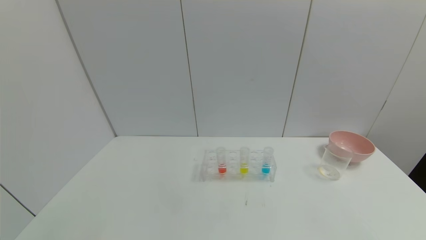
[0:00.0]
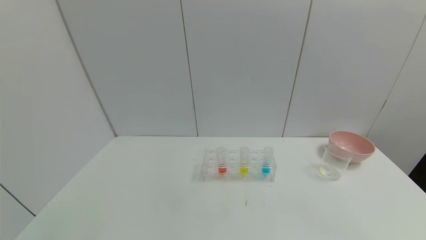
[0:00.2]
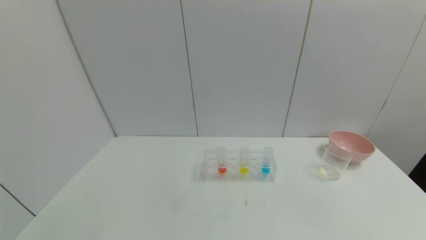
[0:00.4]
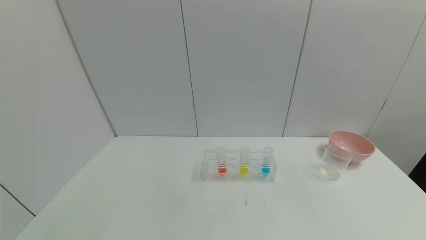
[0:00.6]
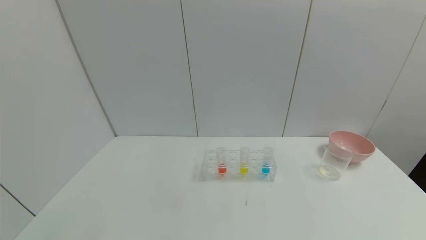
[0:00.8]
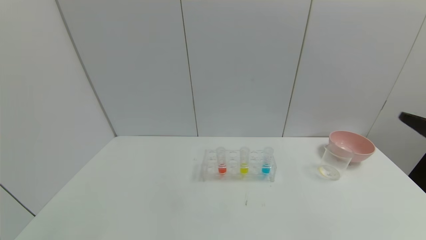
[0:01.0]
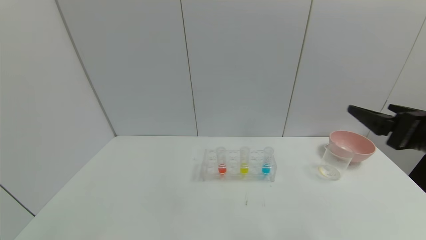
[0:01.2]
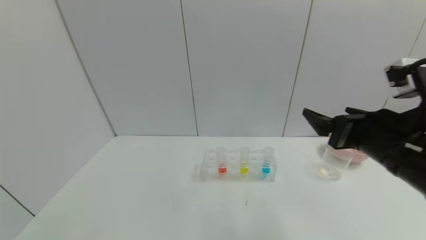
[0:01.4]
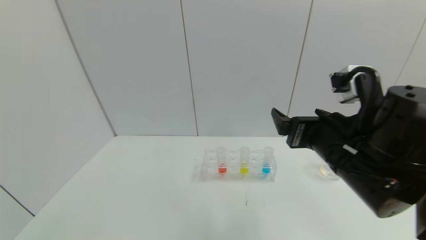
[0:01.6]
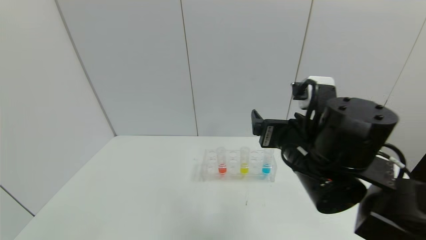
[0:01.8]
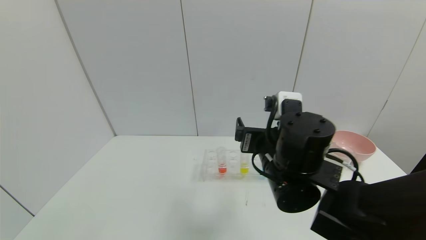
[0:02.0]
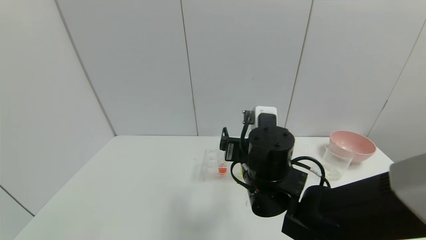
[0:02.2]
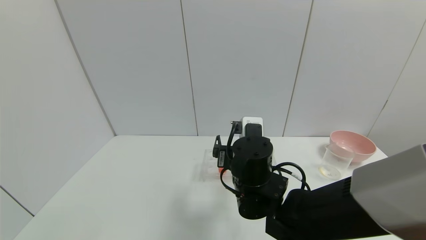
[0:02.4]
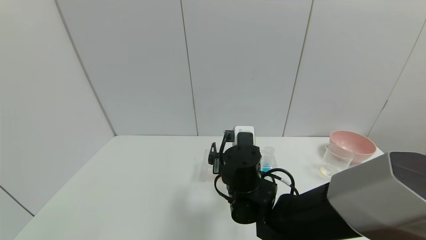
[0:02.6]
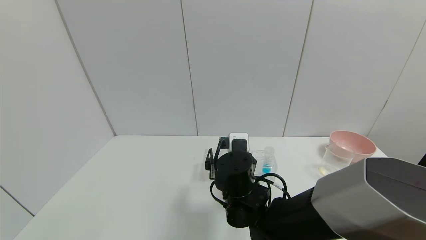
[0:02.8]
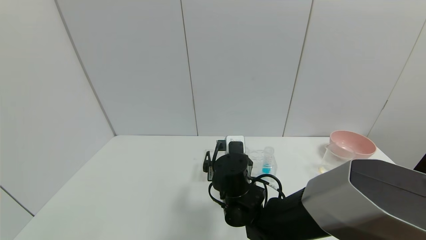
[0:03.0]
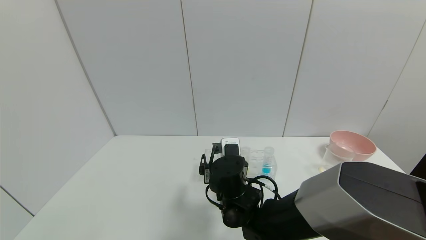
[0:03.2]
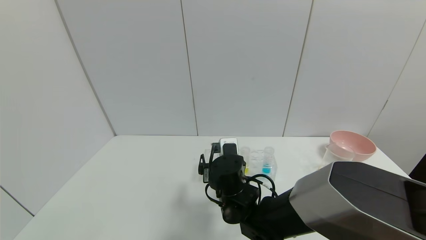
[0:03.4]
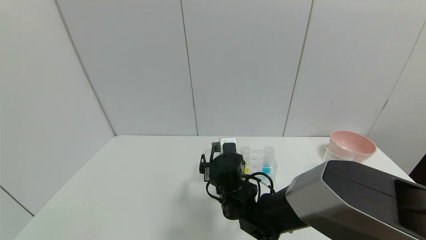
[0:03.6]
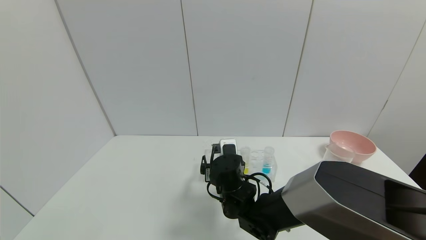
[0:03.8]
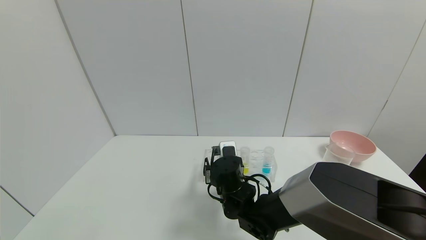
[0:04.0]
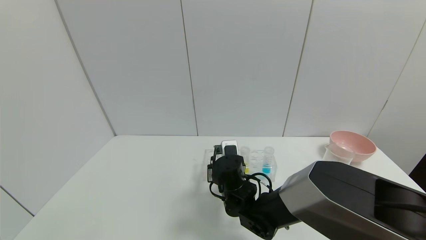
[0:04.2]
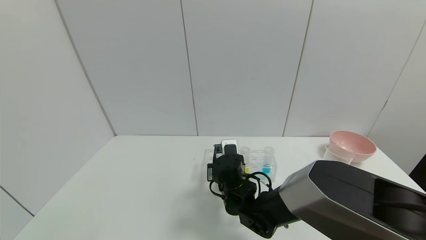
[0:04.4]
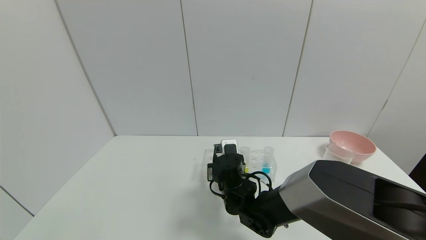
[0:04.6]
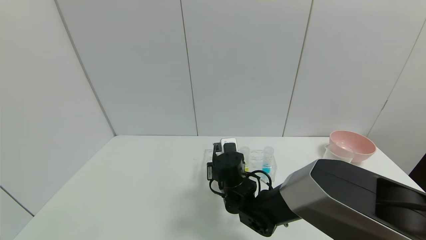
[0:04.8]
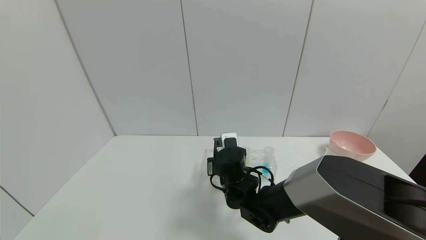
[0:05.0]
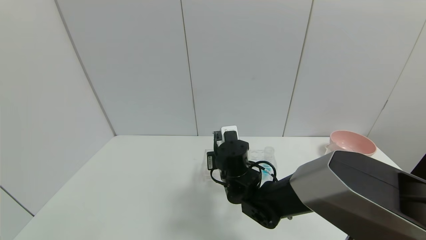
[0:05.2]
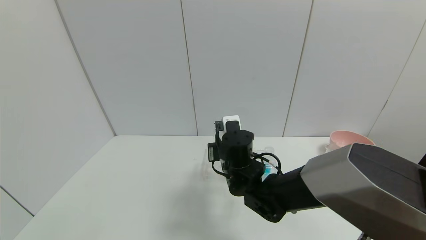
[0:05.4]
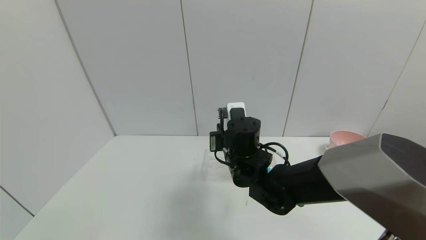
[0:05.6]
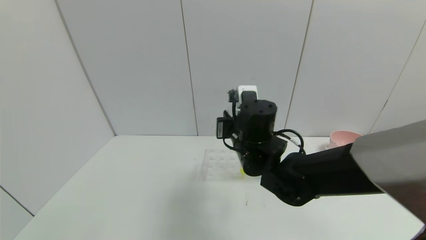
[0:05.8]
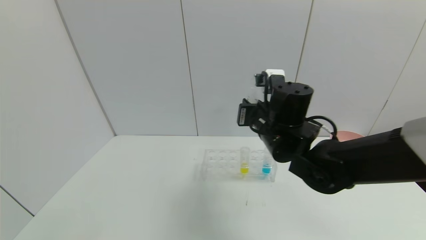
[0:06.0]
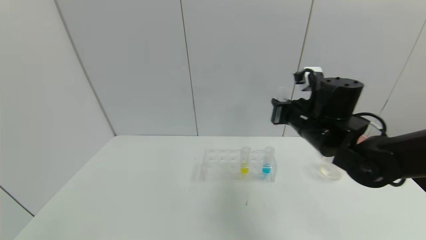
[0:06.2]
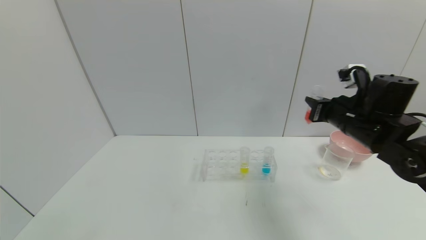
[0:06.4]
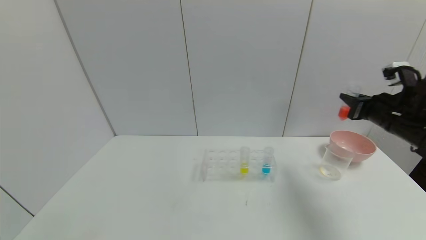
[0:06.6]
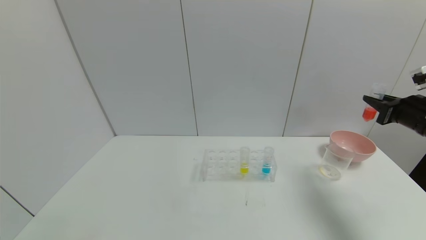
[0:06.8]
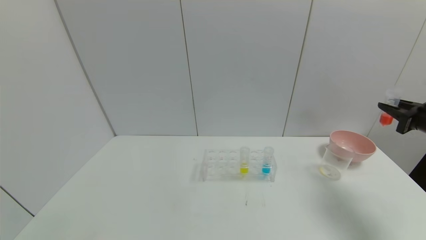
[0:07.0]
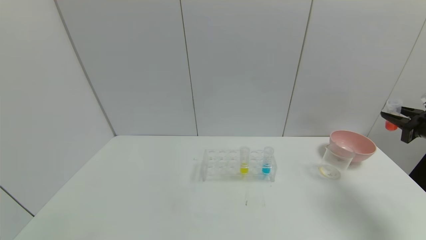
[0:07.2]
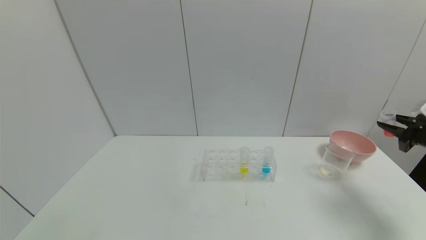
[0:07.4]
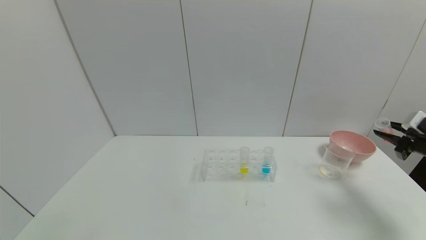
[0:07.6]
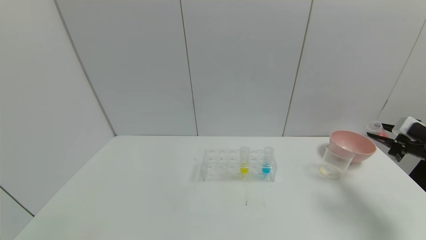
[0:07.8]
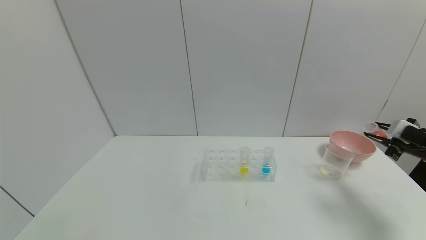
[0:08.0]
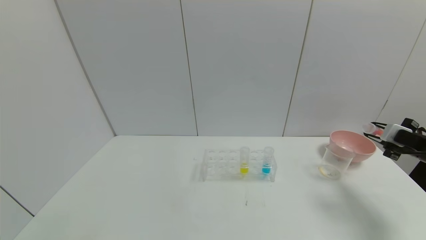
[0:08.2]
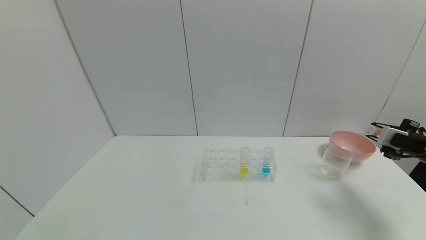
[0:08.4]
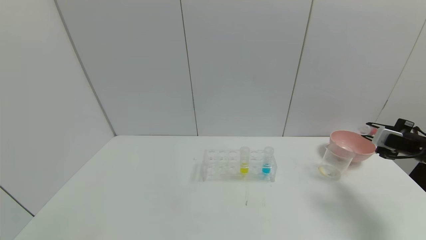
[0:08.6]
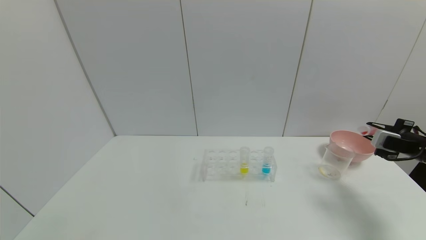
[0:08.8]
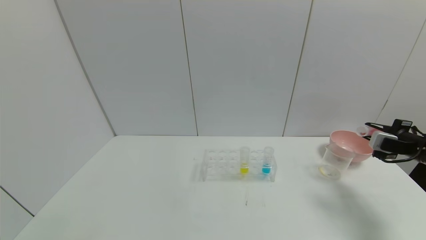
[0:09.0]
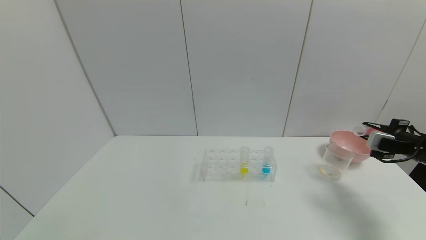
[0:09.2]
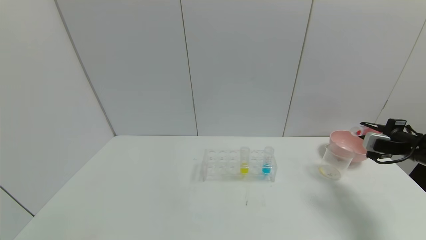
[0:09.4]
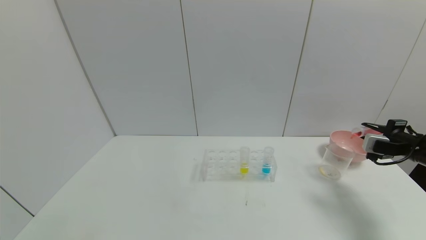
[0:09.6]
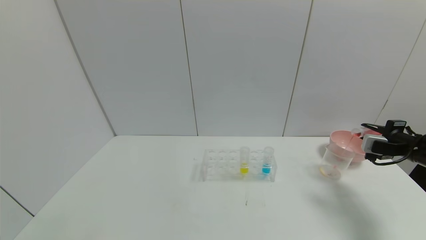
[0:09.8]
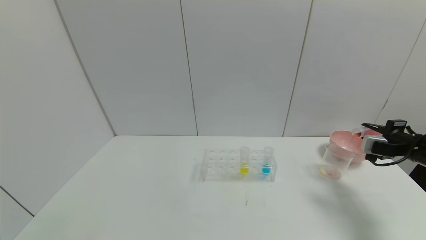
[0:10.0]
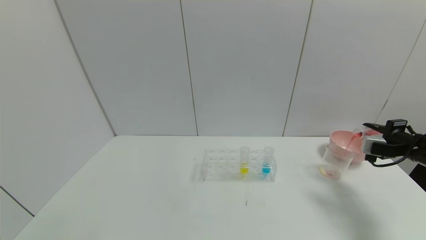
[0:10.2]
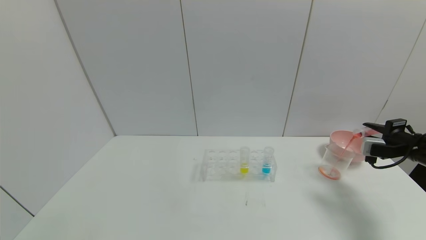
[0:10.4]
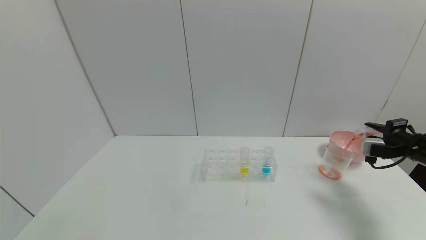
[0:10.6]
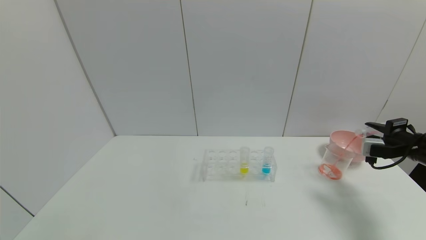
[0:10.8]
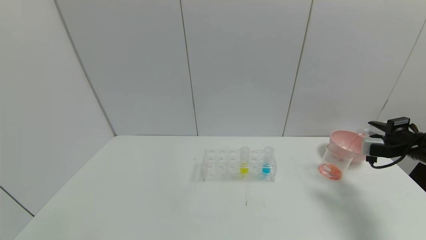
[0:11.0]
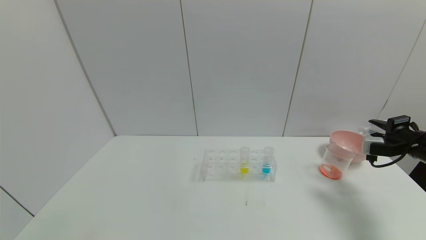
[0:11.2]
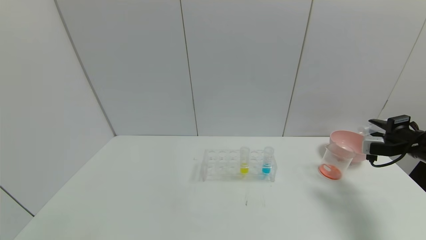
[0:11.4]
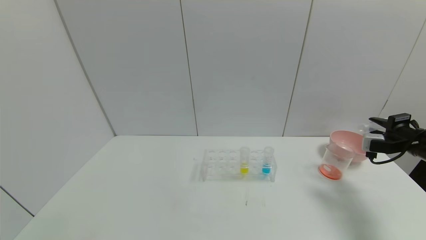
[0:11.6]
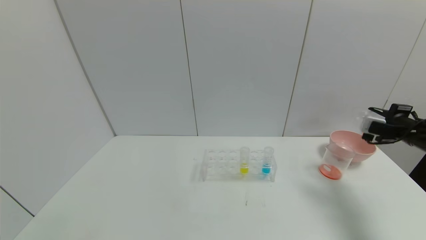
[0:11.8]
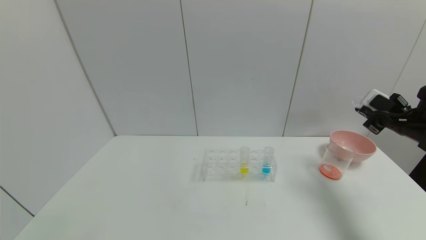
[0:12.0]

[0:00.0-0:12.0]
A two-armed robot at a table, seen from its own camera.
Task of the whole recording: pick up the test tube with yellow pigment and the test tube with red pigment by grippers and pour them into the beaker.
Step, 0:00.0 to 0:04.4: Grasp the red reagent with the right gripper.
Step, 0:04.6 to 0:11.2: Pour the red reagent into the graduated cylinder with the right gripper.
0:00.0 to 0:01.6: The right gripper travels forward, to the left and upward by some 35 cm.
0:01.6 to 0:03.0: The right gripper moves to the left, downward and forward, approximately 20 cm.
0:03.0 to 0:04.4: The right gripper changes place by about 5 cm, and closes.
0:04.4 to 0:06.0: The right gripper moves upward and to the right, roughly 20 cm.
0:06.0 to 0:07.6: The right gripper travels to the right by some 40 cm.
0:09.0 to 0:10.4: The grippers stay close to where they were, moving slightly.
0:10.4 to 0:12.0: The right gripper moves some 5 cm.

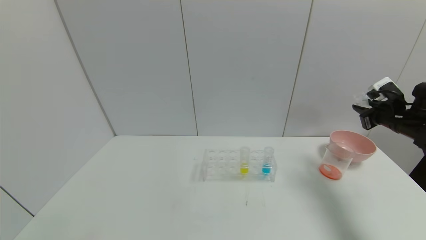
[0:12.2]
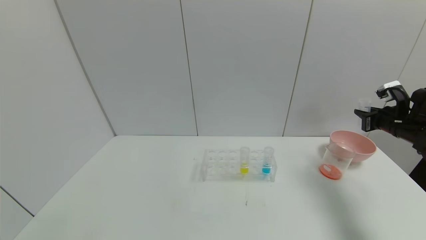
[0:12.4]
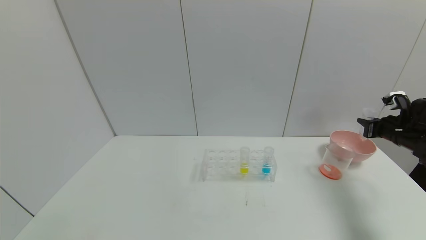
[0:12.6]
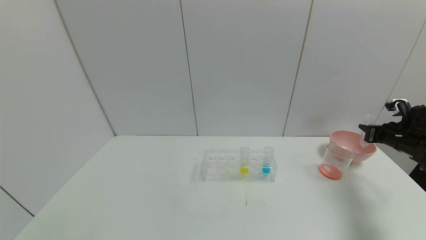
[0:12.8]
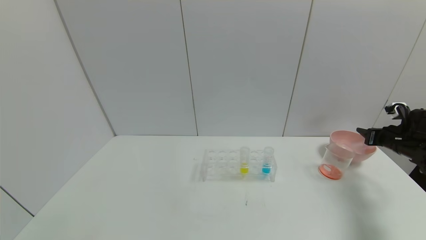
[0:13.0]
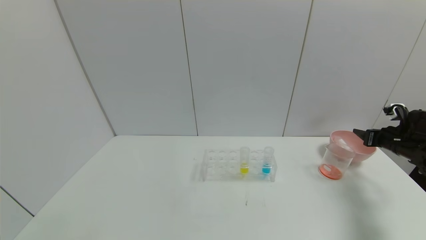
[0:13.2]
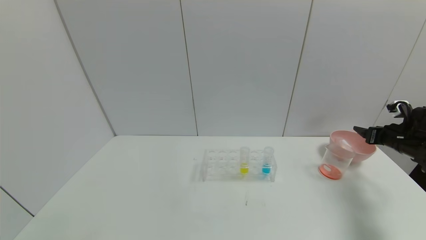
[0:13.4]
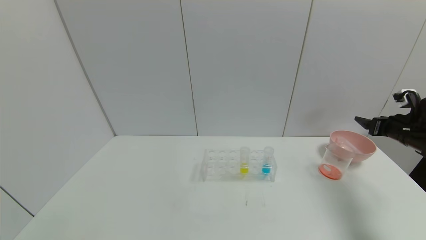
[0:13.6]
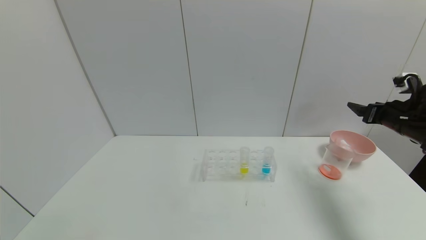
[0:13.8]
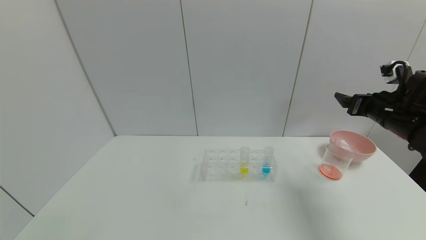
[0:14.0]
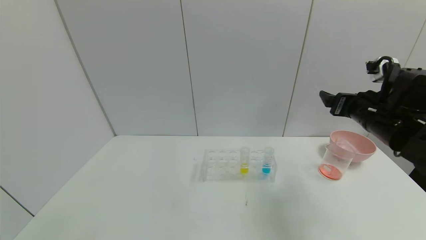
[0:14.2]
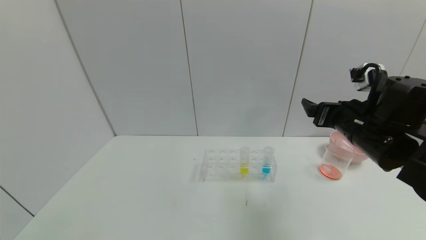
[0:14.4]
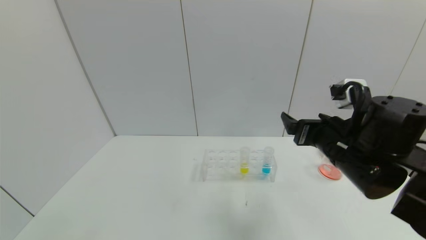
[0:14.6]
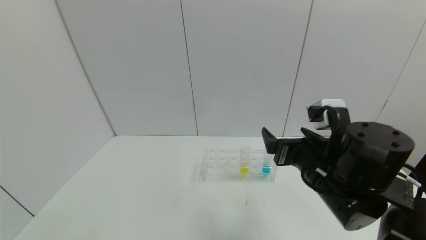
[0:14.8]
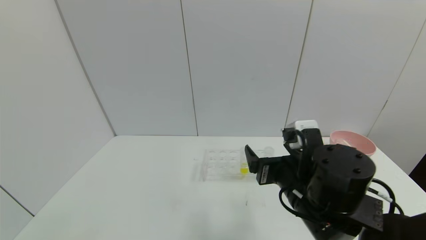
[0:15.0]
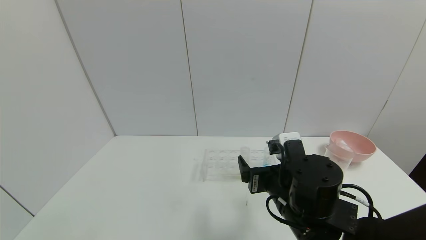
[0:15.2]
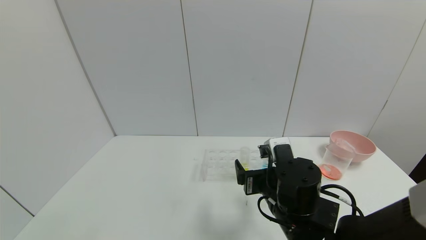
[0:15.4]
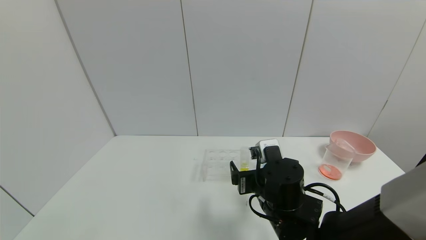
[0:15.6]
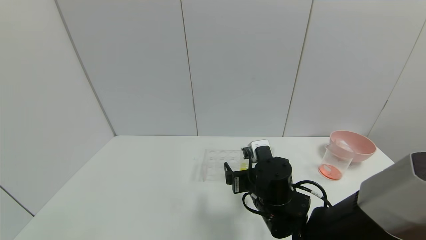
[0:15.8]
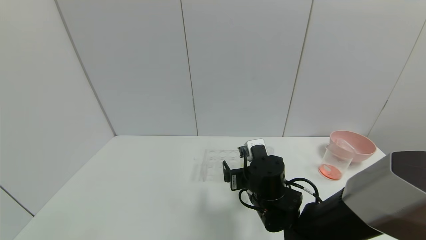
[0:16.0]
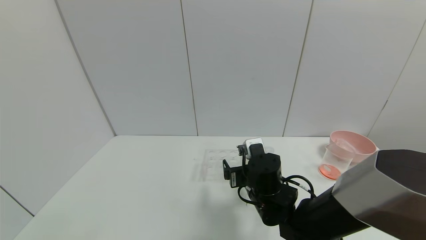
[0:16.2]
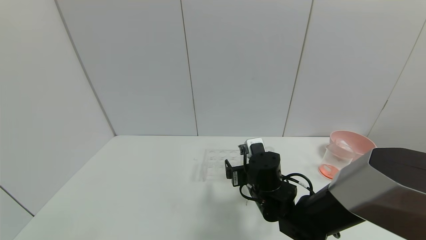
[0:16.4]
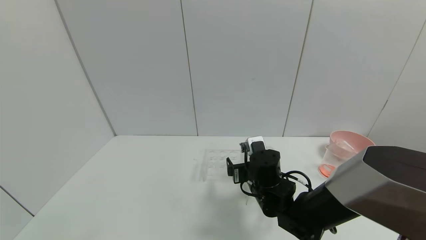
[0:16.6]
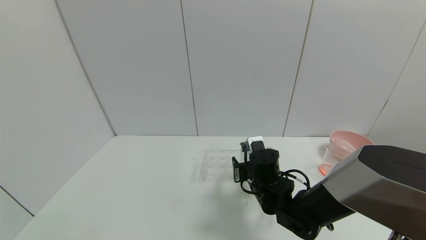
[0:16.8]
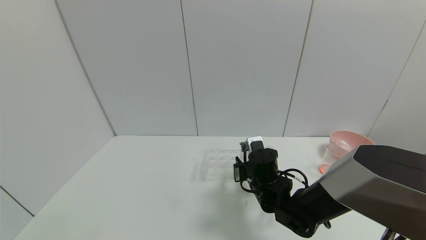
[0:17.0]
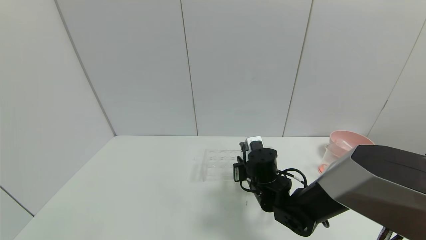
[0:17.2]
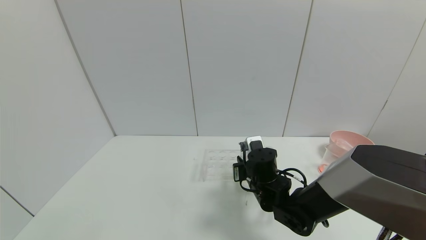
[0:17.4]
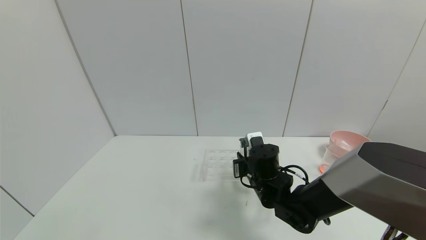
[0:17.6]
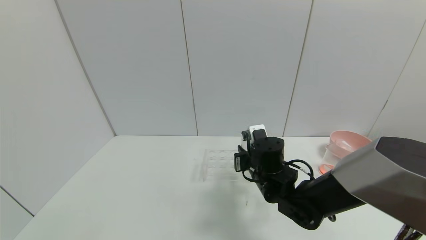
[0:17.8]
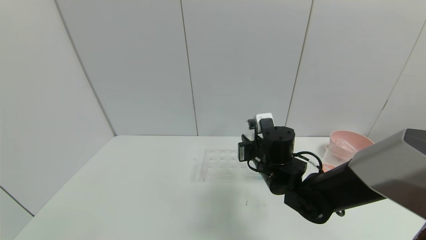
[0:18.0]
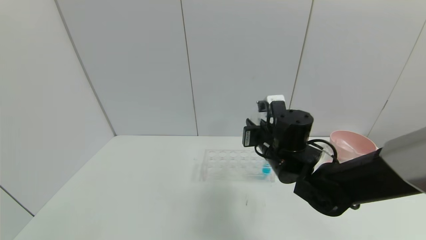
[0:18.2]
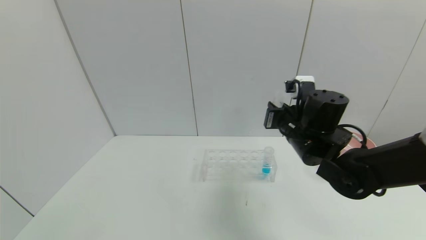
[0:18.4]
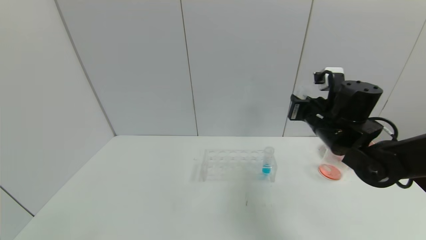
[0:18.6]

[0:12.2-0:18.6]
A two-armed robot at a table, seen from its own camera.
Task of the whole recording: pick up the test tube with yellow pigment and the test tube with red pigment by grippers and pour them into the beaker.
Step, 0:12.2 to 0:13.2: Place the test tube into the bowl with the right gripper.
Step, 0:13.4 to 0:17.2: Grasp the yellow reagent with the right gripper.
0:12.2 to 0:13.8: The right gripper travels downward and back again, about 5 cm each way, and opens its fingers.
0:13.8 to 0:15.4: The right gripper is displaced to the left by some 30 cm.
0:15.4 to 0:17.0: The right gripper moves forward and downward, roughly 10 cm, and closes up.
0:17.0 to 0:18.6: The right gripper heads upward and to the right, covering about 20 cm.
